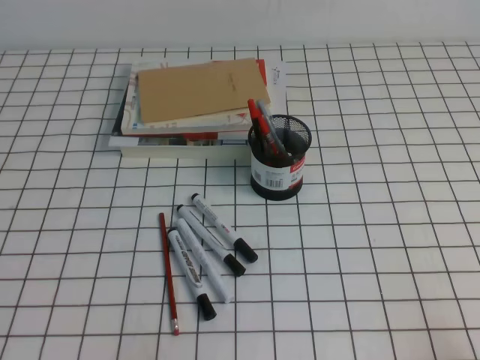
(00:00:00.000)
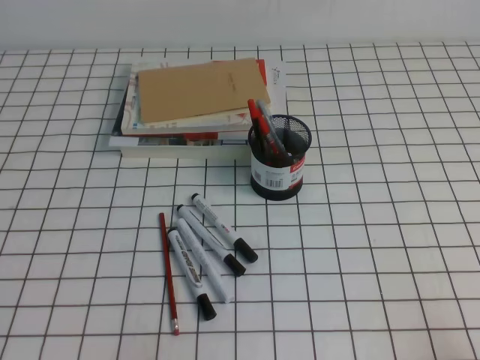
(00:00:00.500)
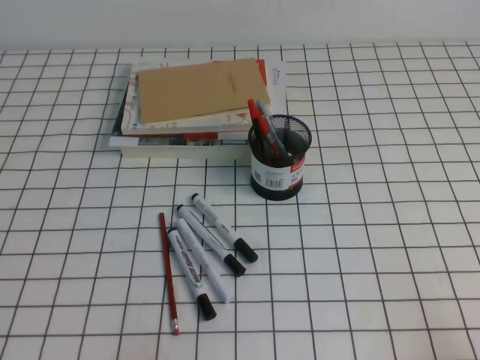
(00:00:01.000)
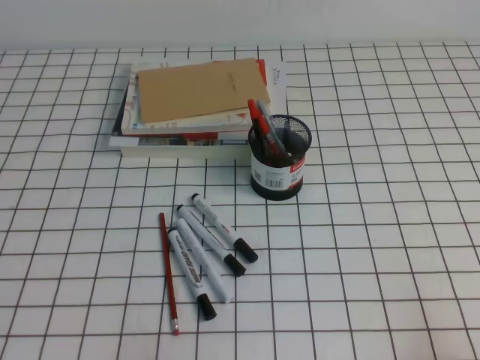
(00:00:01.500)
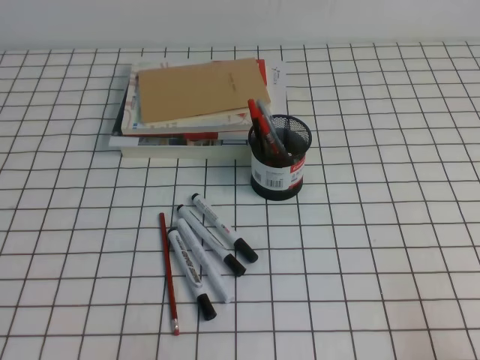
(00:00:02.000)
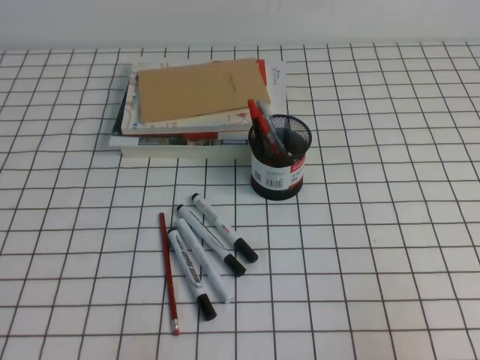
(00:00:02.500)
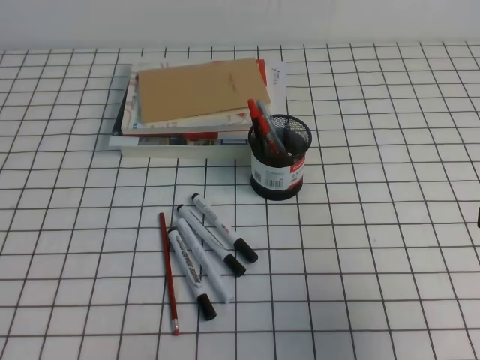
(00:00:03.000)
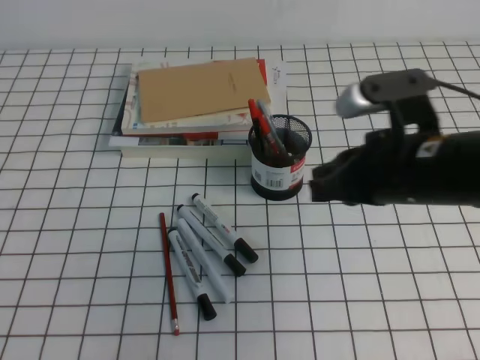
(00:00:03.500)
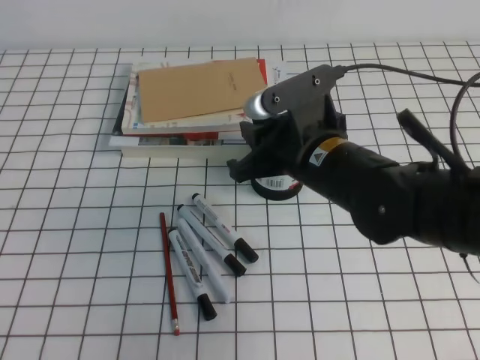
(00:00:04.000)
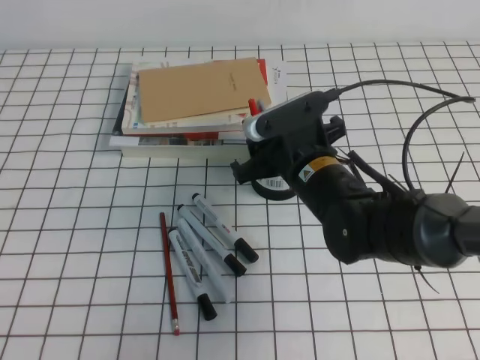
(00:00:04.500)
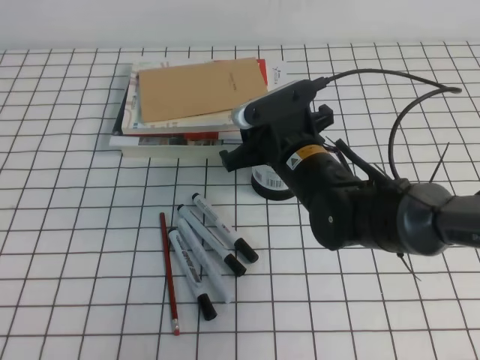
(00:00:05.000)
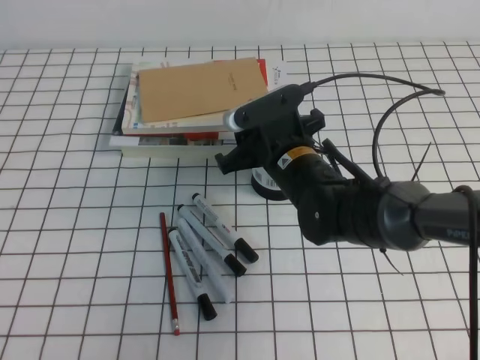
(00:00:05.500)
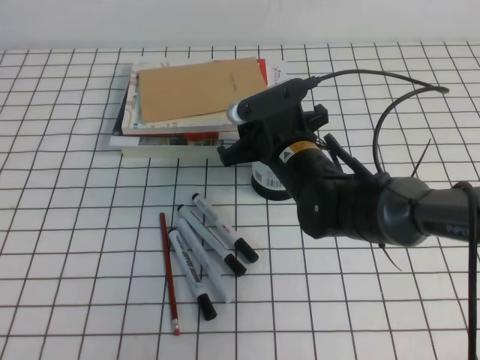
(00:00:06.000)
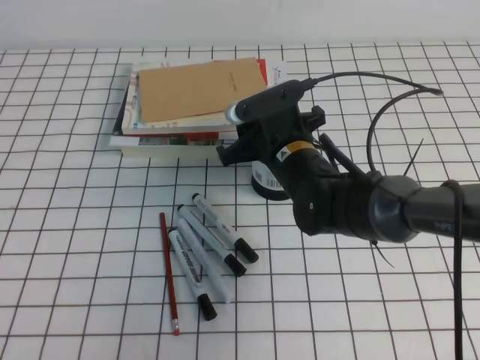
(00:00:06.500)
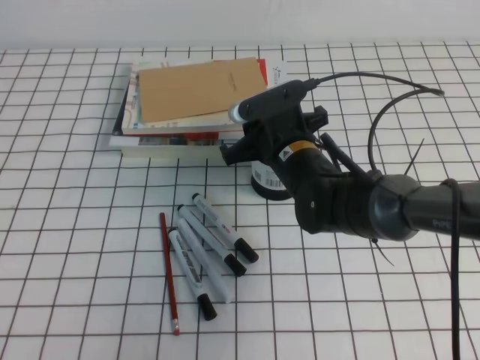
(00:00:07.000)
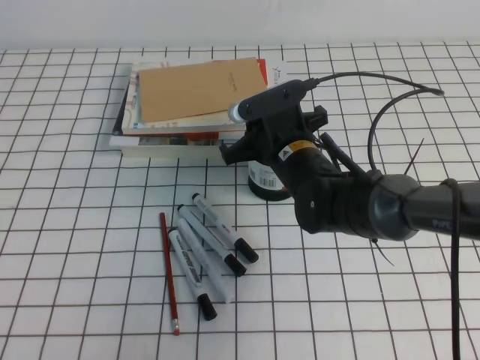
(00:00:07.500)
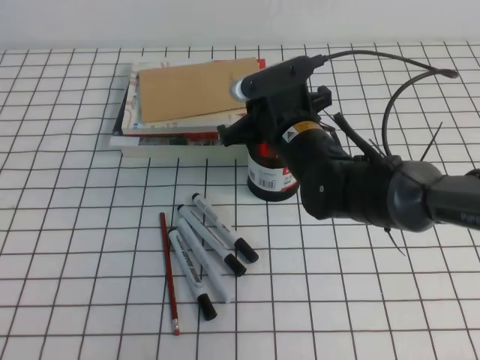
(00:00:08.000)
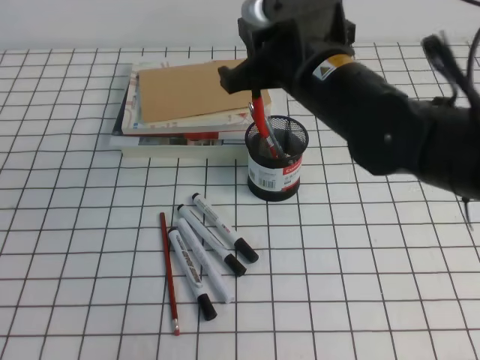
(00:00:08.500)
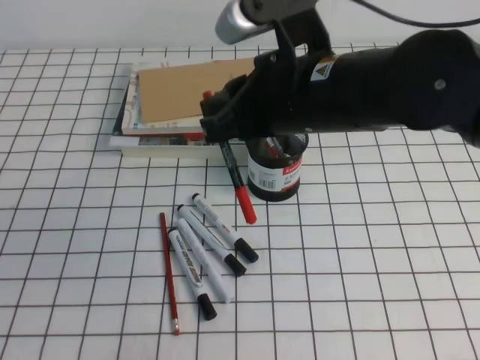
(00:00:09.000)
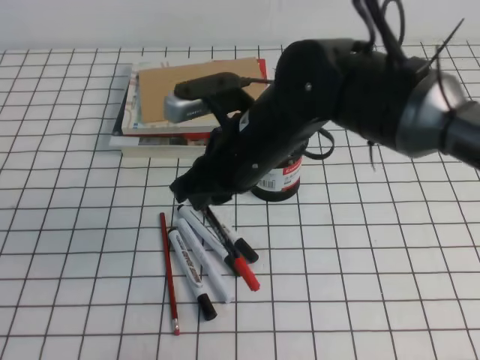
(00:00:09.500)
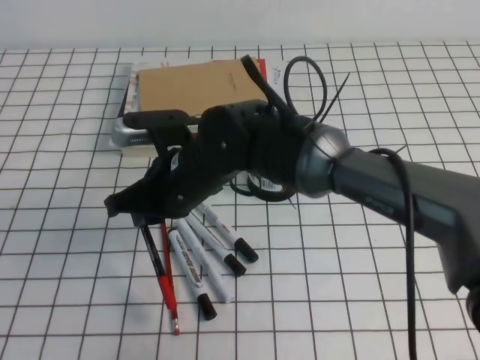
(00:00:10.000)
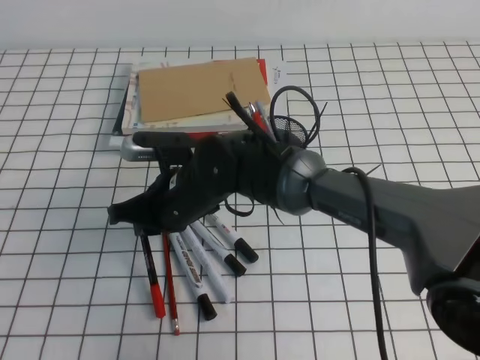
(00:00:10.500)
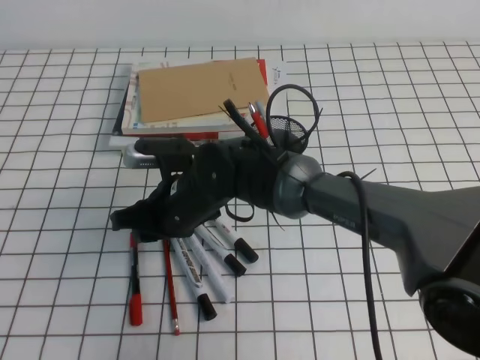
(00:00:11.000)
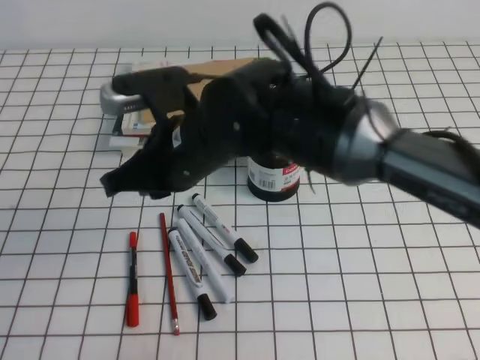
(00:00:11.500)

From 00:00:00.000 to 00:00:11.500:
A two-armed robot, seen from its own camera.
From 00:00:02.000 to 00:00:04.000: The right gripper travels forward and to the left by approximately 35 cm, and opens its fingers.
From 00:00:04.000 to 00:00:06.000: The right gripper travels forward and downward by roughly 10 cm, and opens.
From 00:00:06.000 to 00:00:07.500: The right gripper closes up.
From 00:00:07.500 to 00:00:09.500: The right gripper goes approximately 10 cm upward and backward.
From 00:00:09.500 to 00:00:11.500: The right gripper moves to the left, about 5 cm, and travels downward and back again, some 10 cm each way.

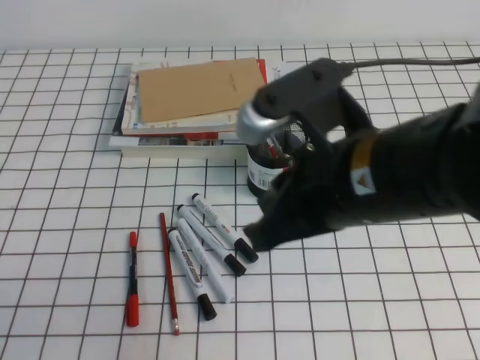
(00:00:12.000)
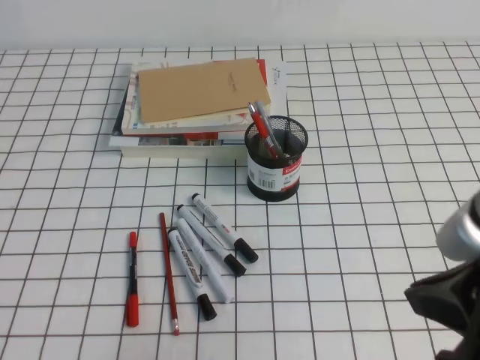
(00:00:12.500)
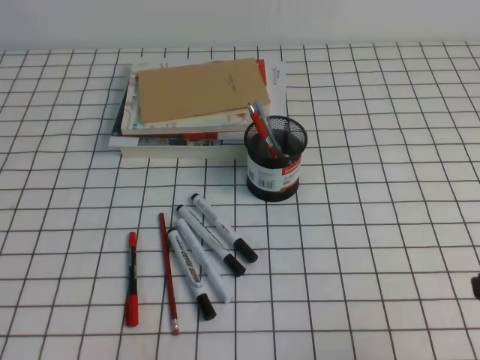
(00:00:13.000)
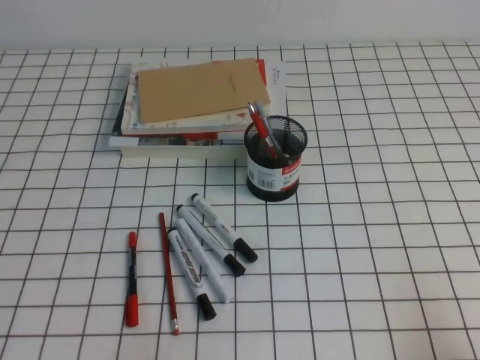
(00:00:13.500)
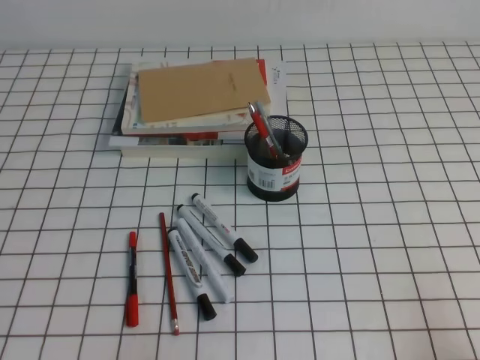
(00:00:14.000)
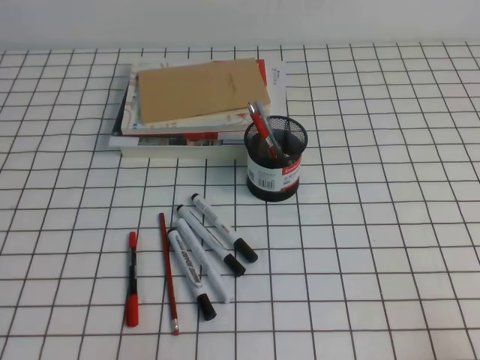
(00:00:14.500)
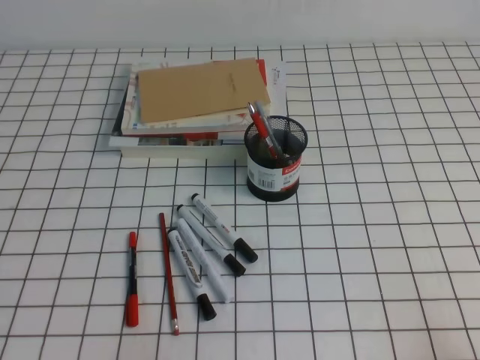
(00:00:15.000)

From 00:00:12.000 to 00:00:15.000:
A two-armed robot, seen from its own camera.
Step, from 00:00:12.000 to 00:00:15.000: Pick up the pen from the pen holder.
From 00:00:12.000 to 00:00:13.500: The right gripper goes about 30 cm to the right, downward and backward.
